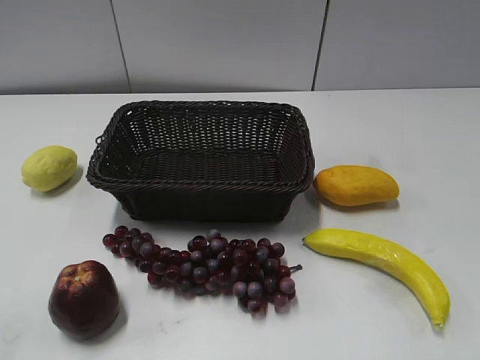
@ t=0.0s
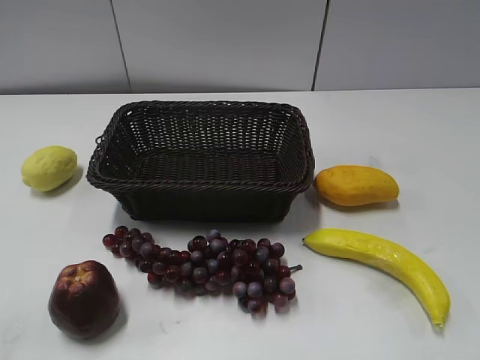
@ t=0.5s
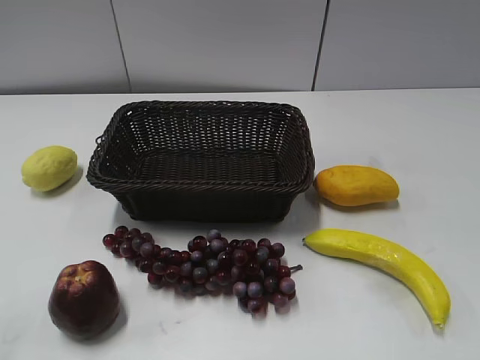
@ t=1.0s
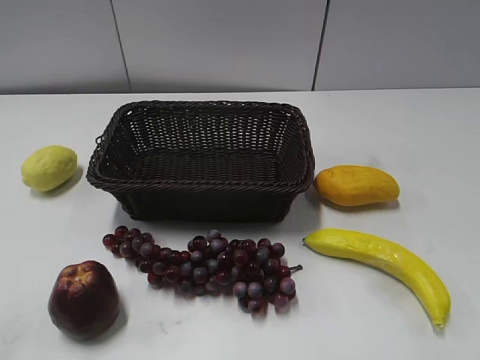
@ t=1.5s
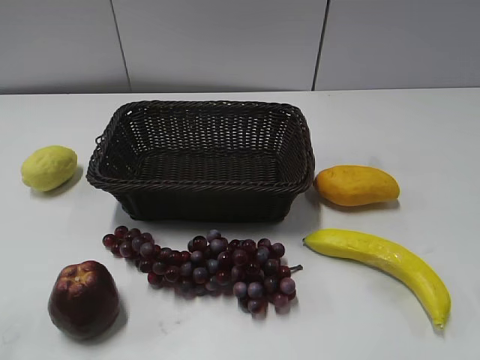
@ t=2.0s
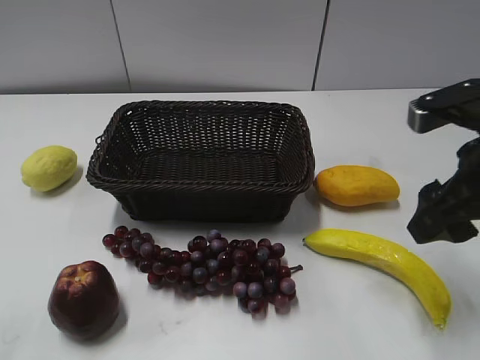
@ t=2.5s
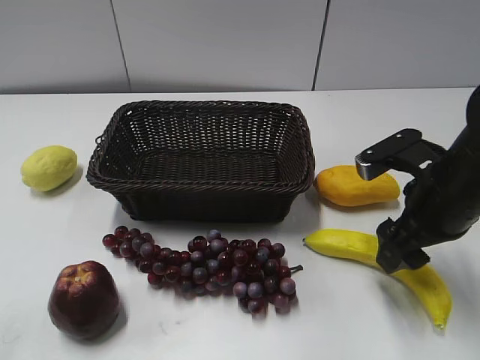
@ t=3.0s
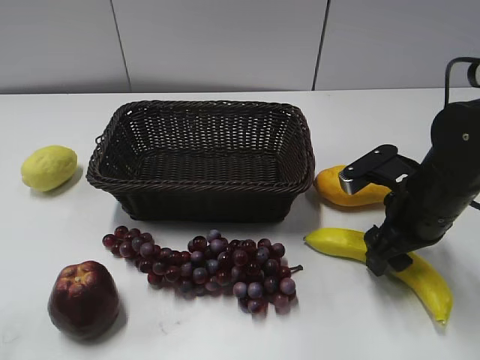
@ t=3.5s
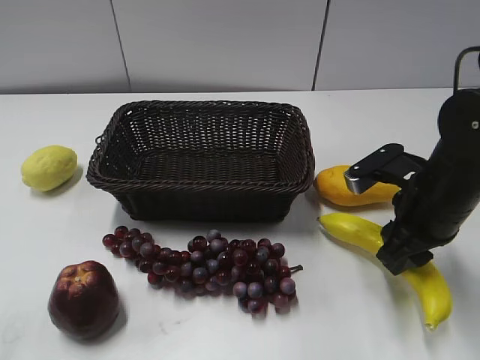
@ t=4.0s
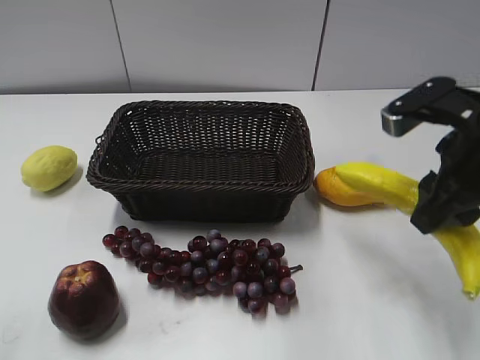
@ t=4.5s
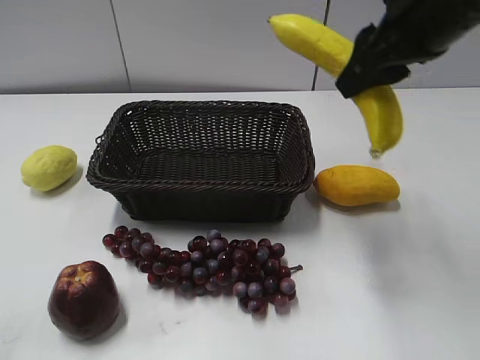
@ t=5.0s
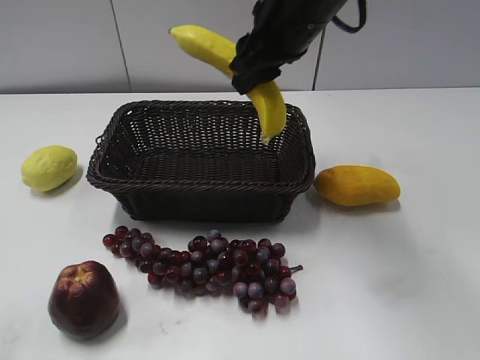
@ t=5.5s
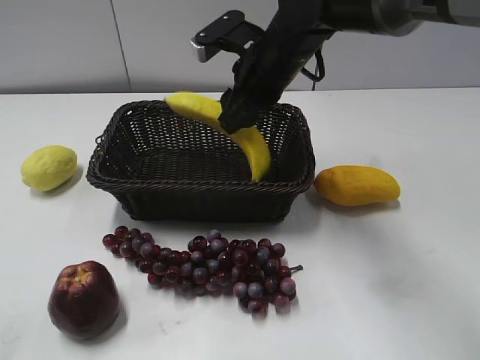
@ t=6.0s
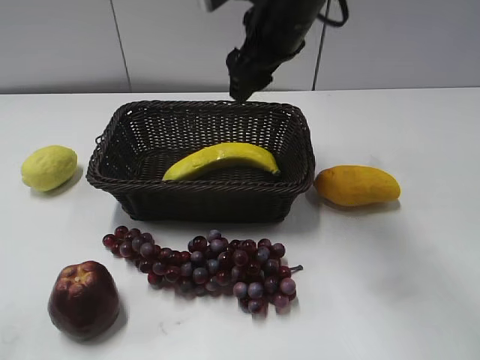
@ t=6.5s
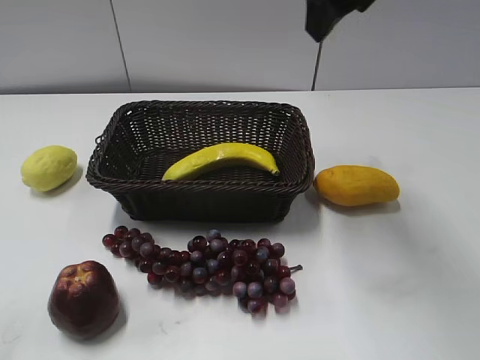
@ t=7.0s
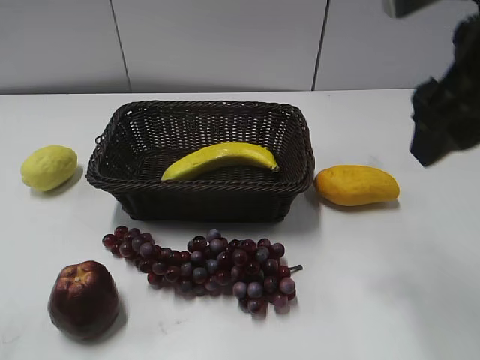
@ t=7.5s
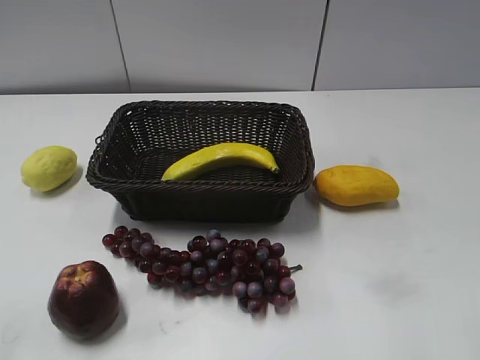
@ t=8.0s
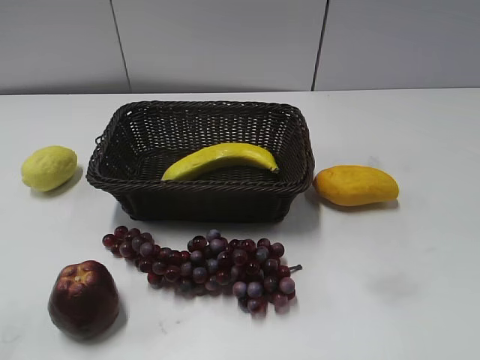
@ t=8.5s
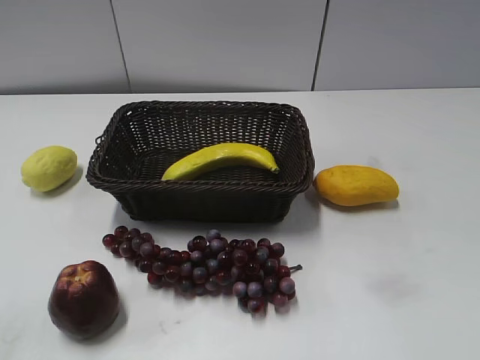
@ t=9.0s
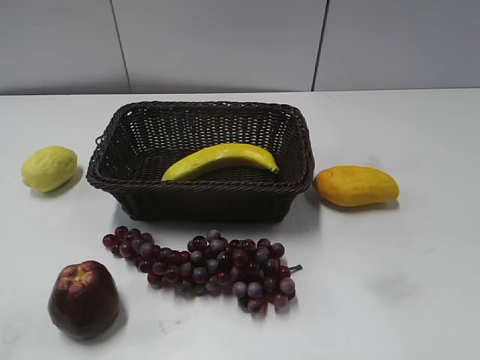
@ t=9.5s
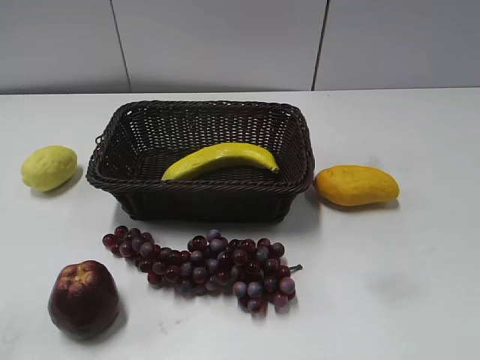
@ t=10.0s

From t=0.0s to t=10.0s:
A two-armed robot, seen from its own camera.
Step, from t=2.5s to t=3.5s: Grasp the banana with right gripper.
Step, from t=4.0s to t=6.0s: Place the banana in the basket with right gripper.
From t=2.0s to t=4.0s: The right gripper travels downward, forward and to the left by approximately 20 cm, and closes.
From t=4.0s to t=6.0s: The right gripper moves to the left and forward, some 20 cm.
From t=6.0s to t=8.0s: The right gripper is displaced backward and to the right by roughly 35 cm, and opens.
